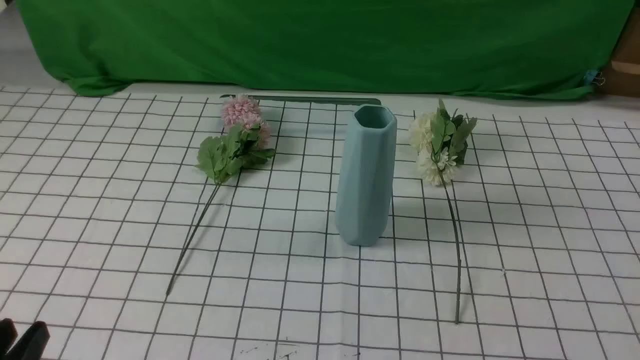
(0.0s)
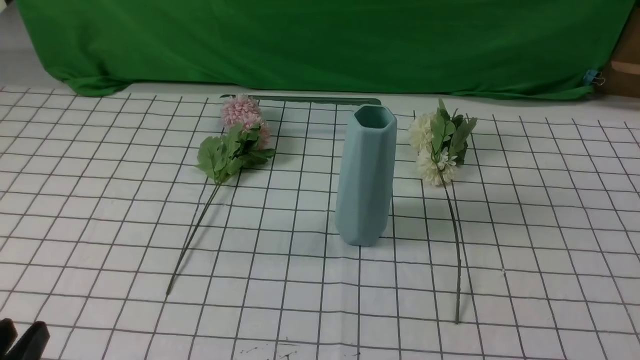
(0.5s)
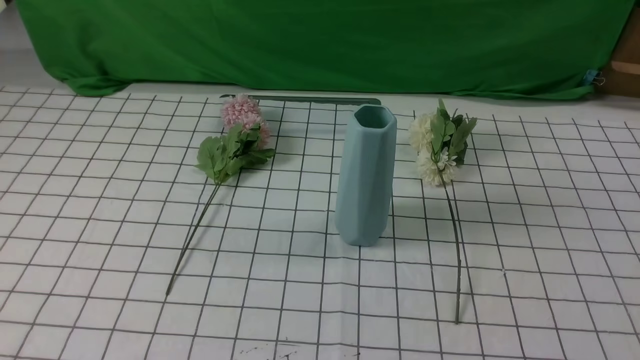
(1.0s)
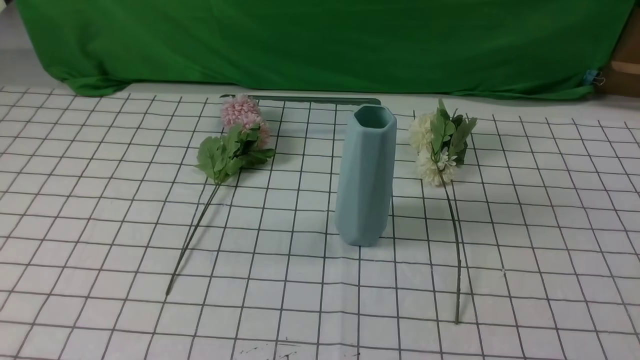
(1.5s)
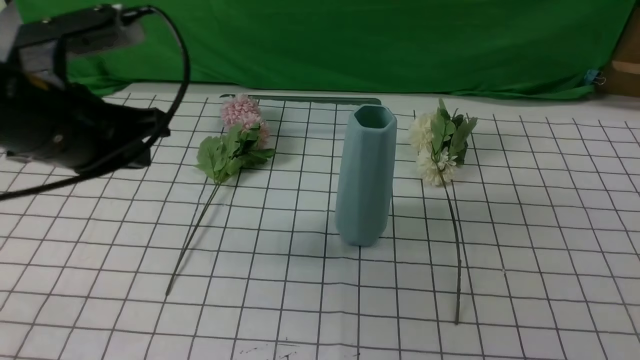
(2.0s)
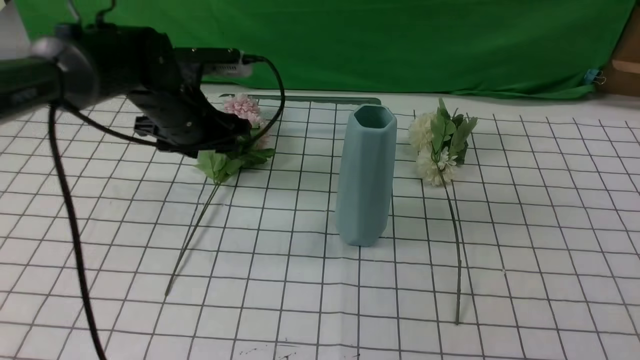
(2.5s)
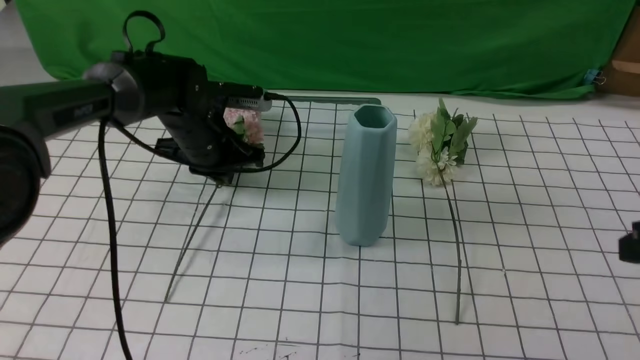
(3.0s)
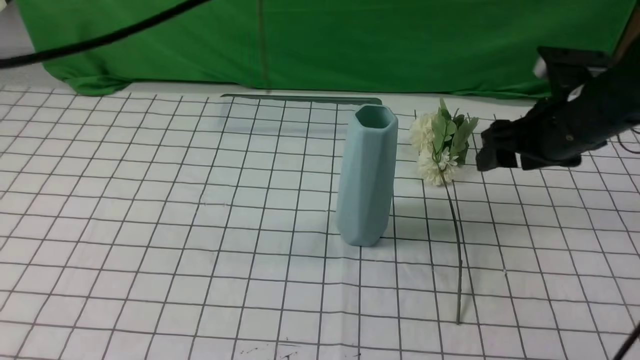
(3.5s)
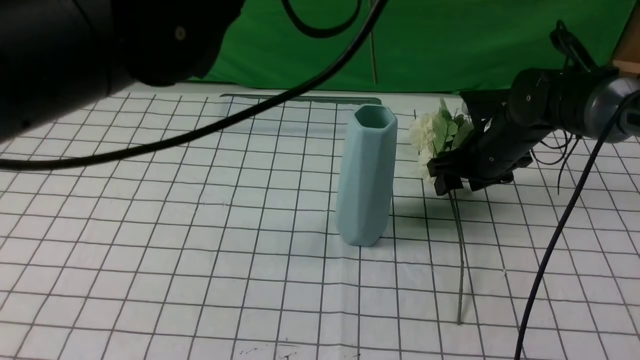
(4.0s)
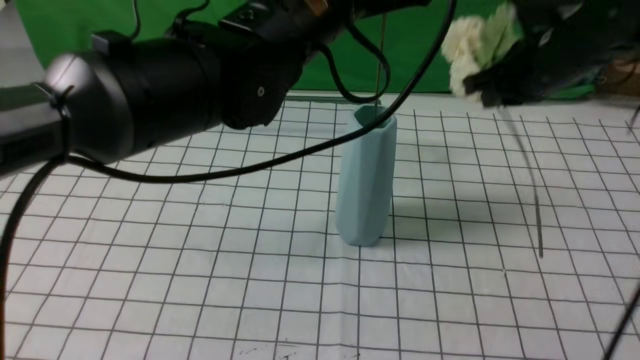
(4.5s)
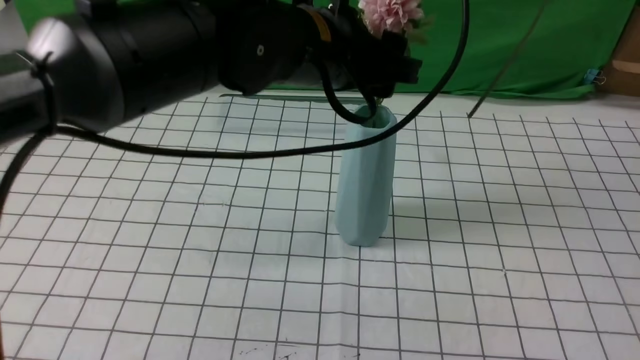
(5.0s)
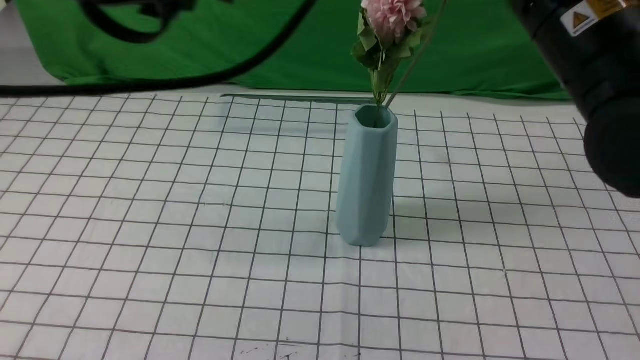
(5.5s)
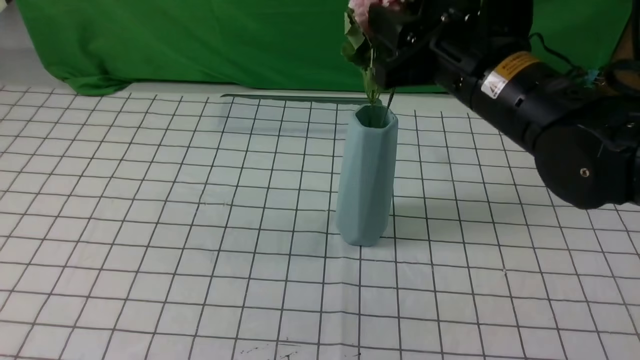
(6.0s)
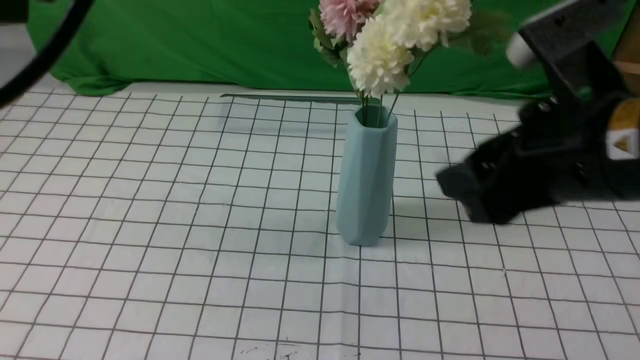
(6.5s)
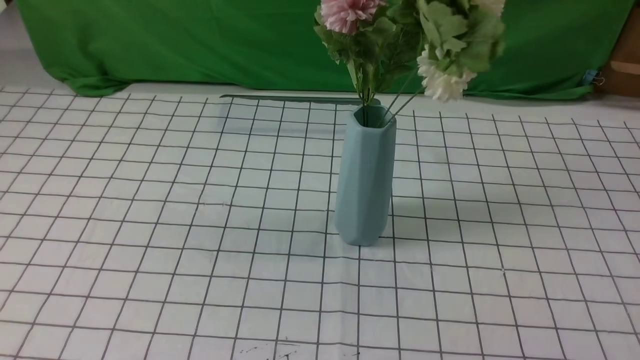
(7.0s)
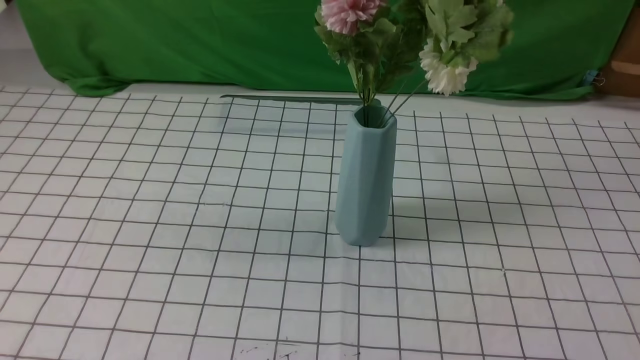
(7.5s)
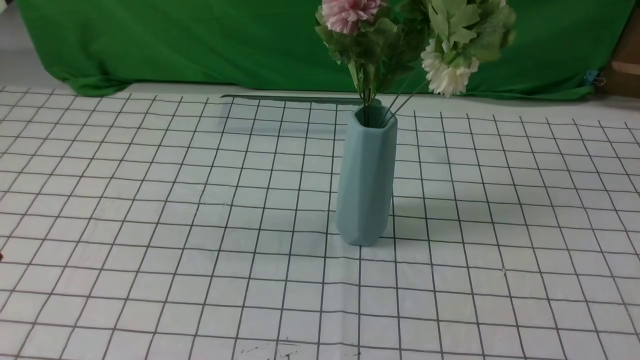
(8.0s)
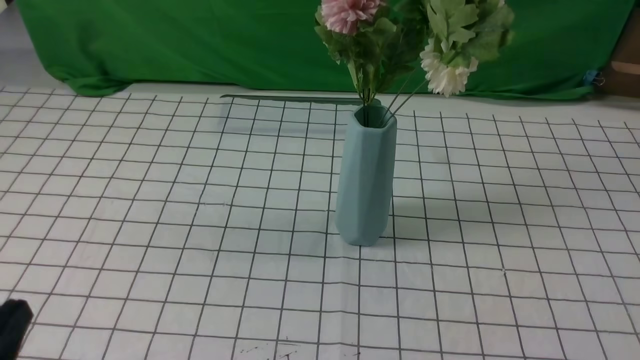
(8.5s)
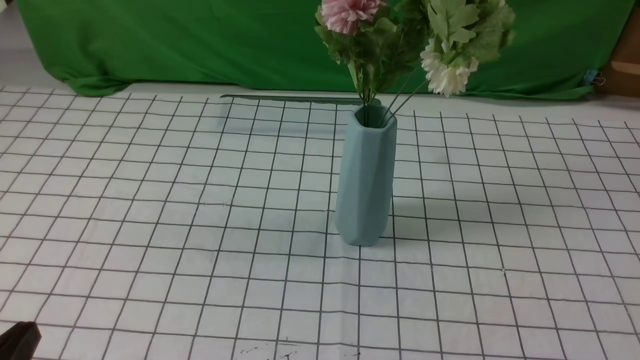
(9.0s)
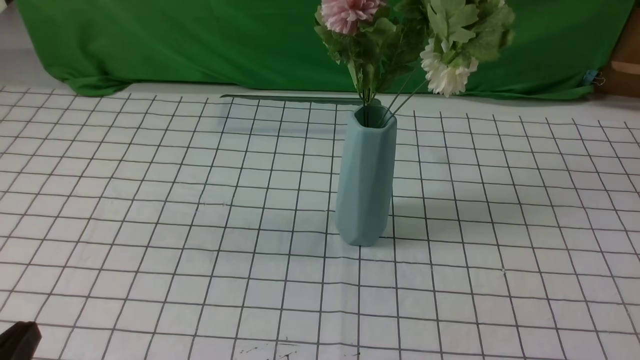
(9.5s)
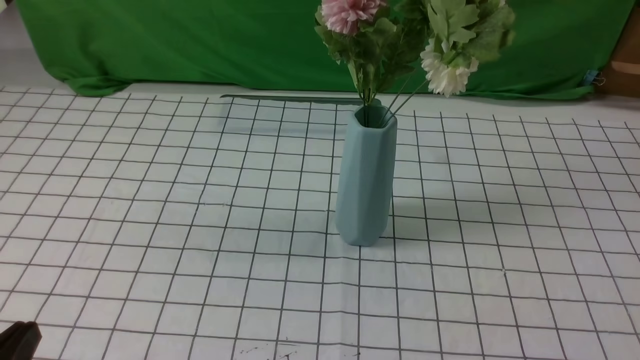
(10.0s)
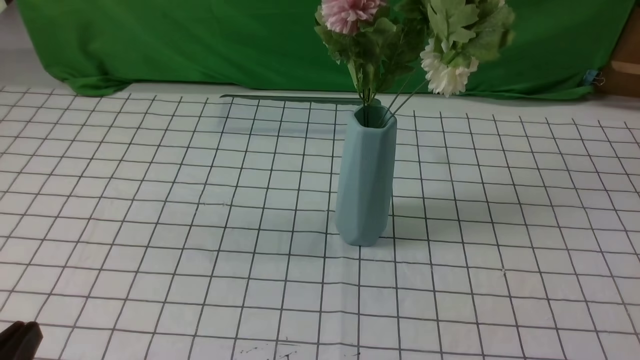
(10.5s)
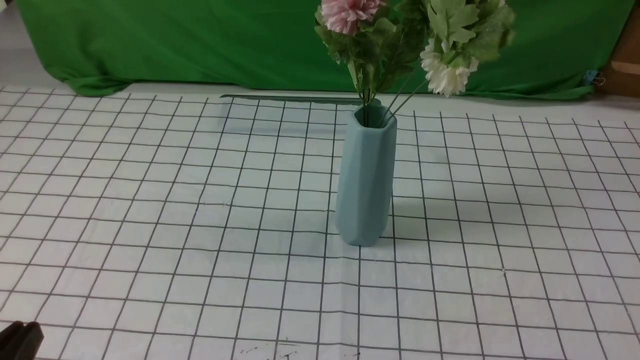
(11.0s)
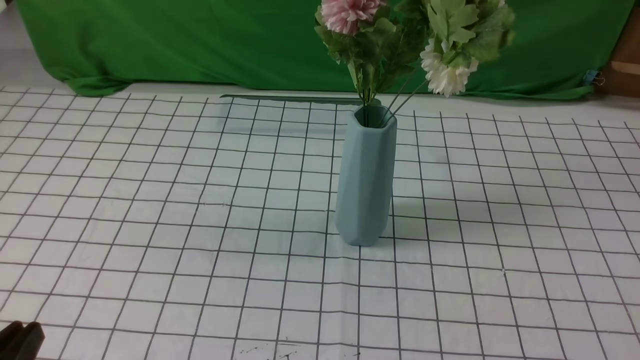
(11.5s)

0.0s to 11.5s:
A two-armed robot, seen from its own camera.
Task of the whole recording: insert the flowers into the vase on the table with the white tablecloth.
Step, 0.0s to 6.0s: Put the flowers in the vase with both hands.
0.0s to 2.0s: The right gripper goes about 10 cm upward. The left gripper is displaced forward and upward by roughly 25 cm, and closes up.
2.0s to 4.0s: The left gripper travels to the right and upward by approximately 20 cm, and opens, then closes once more; the right gripper moves forward, some 40 cm, and opens.
4.0s to 6.0s: The left gripper heads to the left, backward and upward, covering about 20 cm, and opens, then closes again. The right gripper shifts about 25 cm upward, backward and to the left, and closes, then reopens.
6.0s to 7.5s: The left gripper heads downward and backward, covering roughly 20 cm. The right gripper heads backward and to the right, covering approximately 35 cm, and closes.
